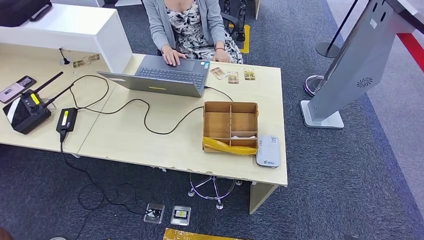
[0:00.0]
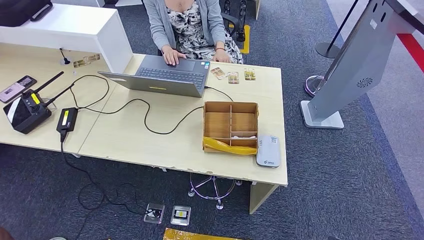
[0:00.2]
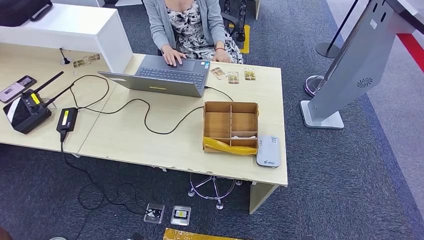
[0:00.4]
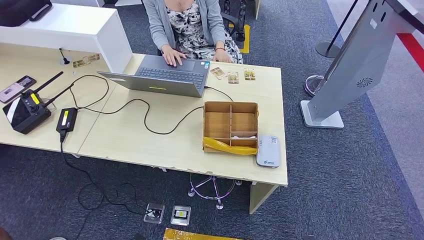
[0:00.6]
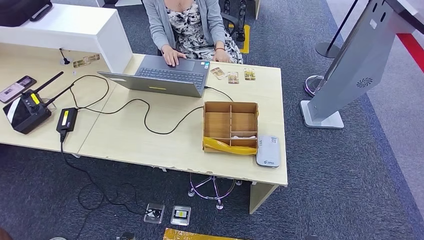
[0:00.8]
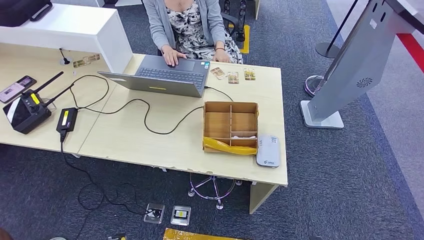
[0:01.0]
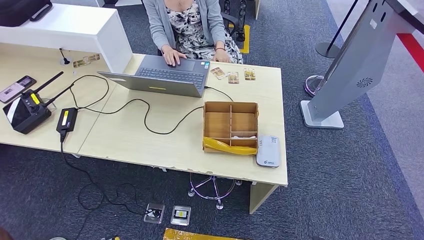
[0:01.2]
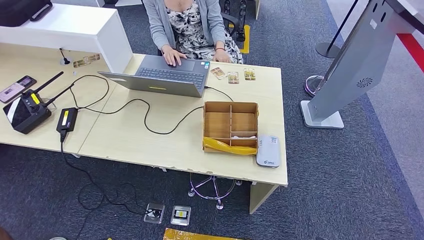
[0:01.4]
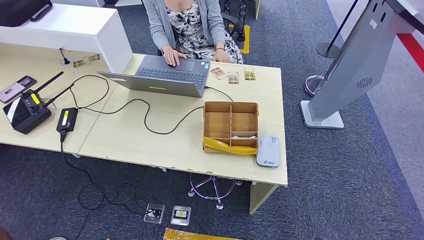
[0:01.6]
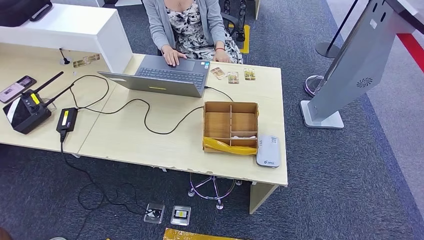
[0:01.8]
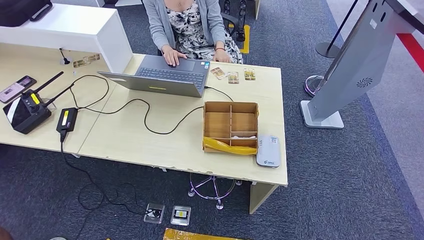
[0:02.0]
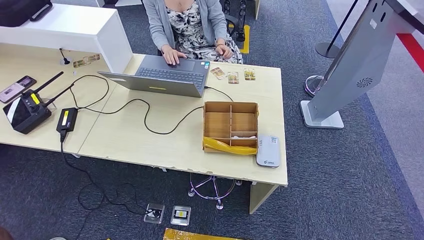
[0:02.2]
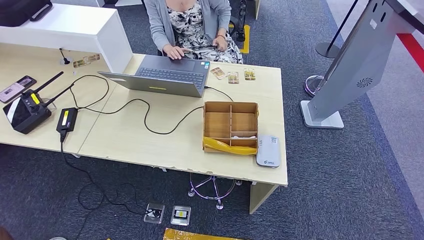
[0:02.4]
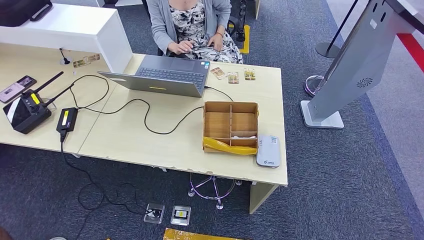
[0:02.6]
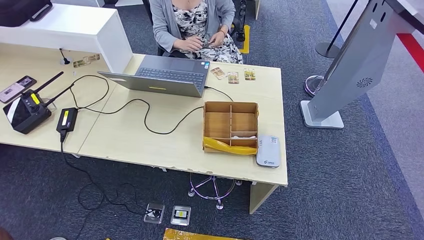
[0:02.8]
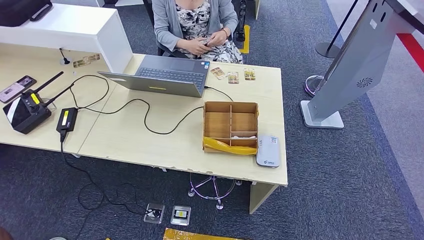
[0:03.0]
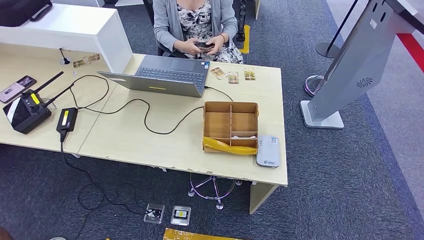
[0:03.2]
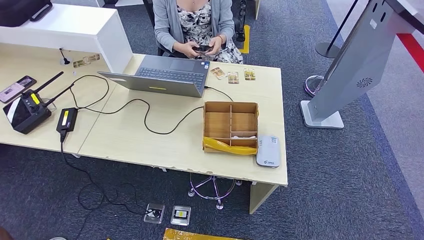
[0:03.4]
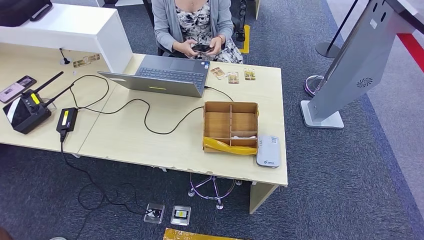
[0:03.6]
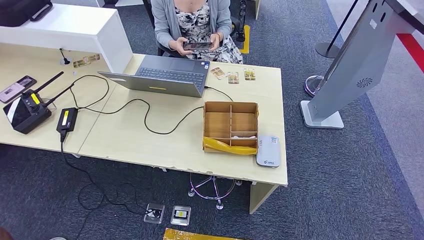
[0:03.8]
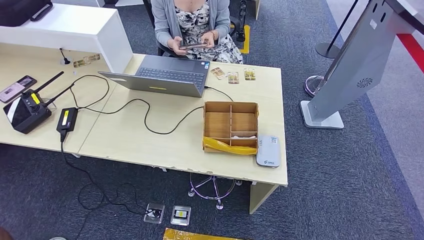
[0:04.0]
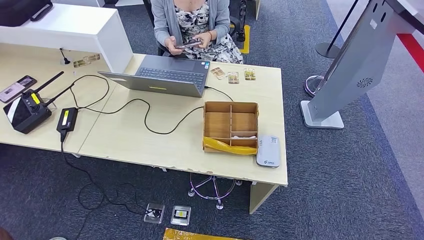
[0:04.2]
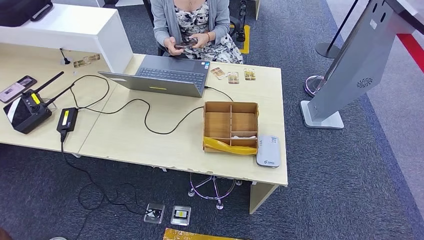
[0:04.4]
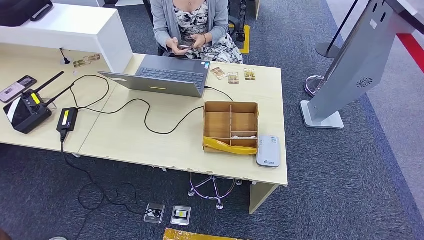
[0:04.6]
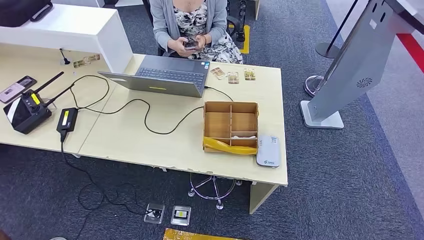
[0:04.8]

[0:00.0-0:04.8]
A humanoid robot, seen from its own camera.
Step, 0:00.0 to 0:04.6: Hand the room key to the person.
0:01.6 to 0:03.2: The hands make only small movements.
0:03.2 to 0:04.8: The right hand is displaced backward and to the left by roughly 10 cm; the left hand travels backward by about 5 cm.
